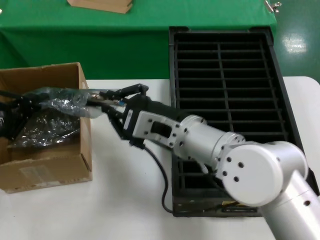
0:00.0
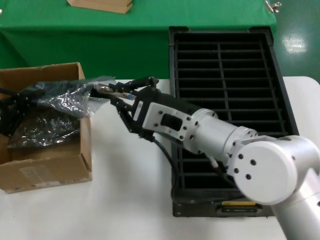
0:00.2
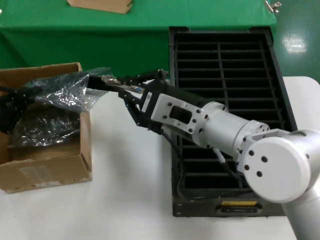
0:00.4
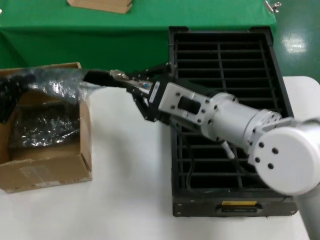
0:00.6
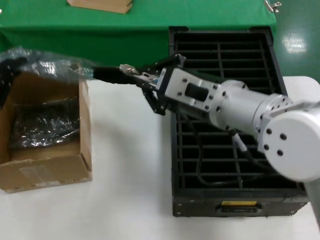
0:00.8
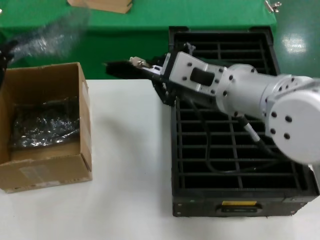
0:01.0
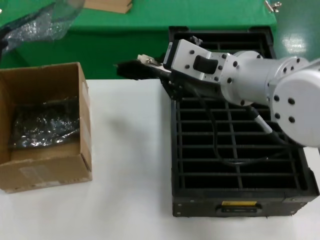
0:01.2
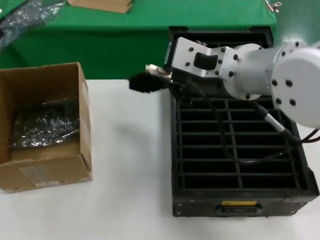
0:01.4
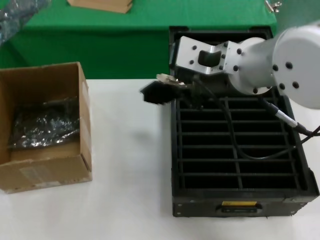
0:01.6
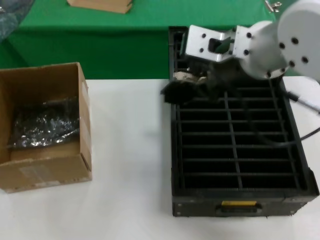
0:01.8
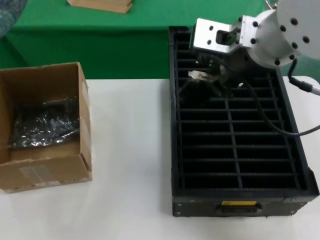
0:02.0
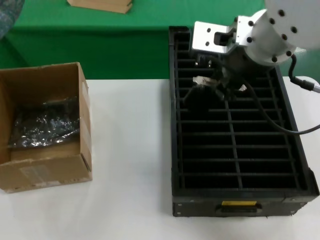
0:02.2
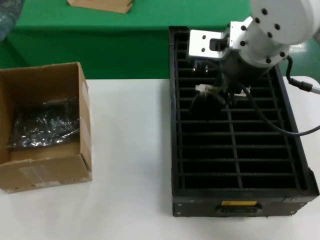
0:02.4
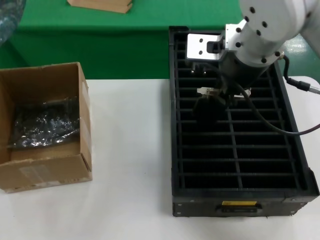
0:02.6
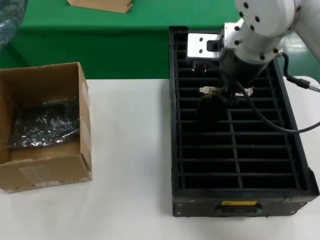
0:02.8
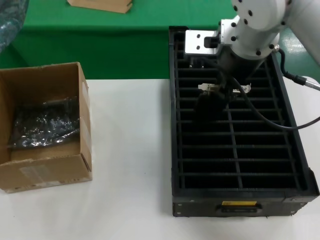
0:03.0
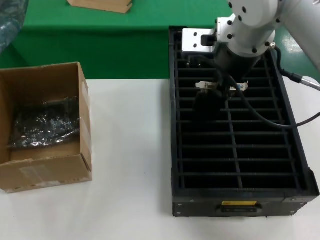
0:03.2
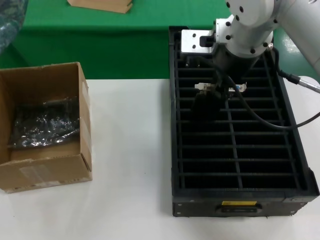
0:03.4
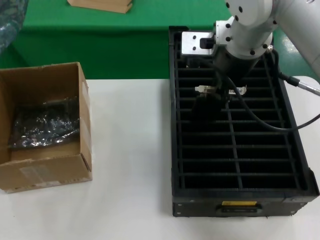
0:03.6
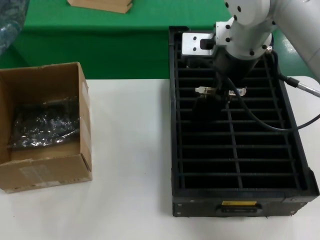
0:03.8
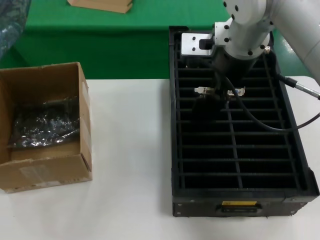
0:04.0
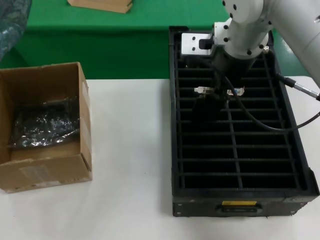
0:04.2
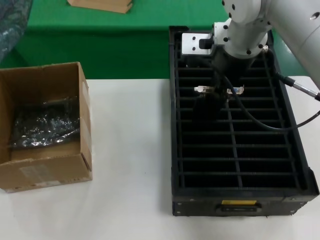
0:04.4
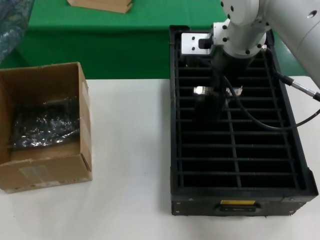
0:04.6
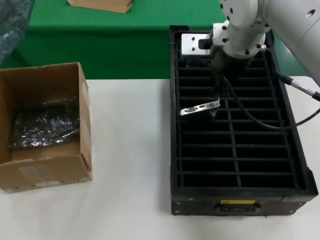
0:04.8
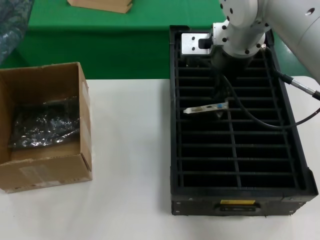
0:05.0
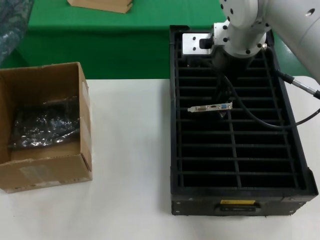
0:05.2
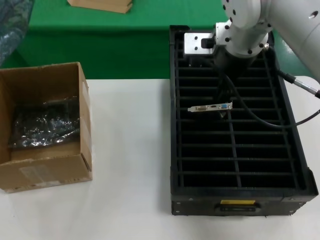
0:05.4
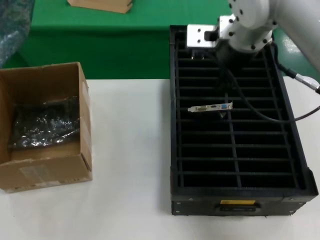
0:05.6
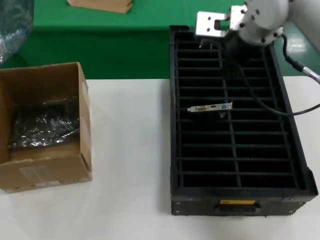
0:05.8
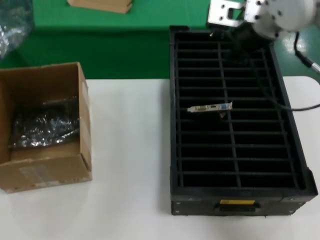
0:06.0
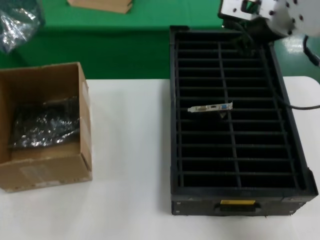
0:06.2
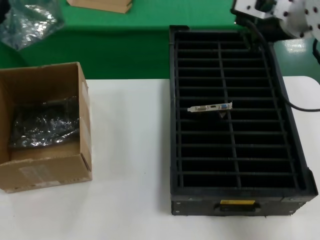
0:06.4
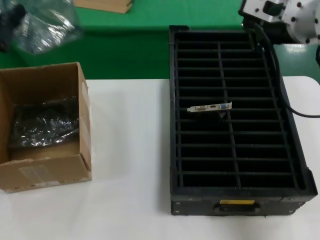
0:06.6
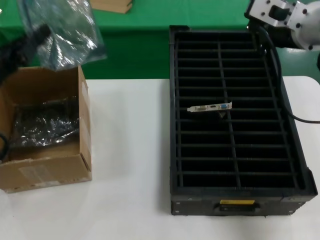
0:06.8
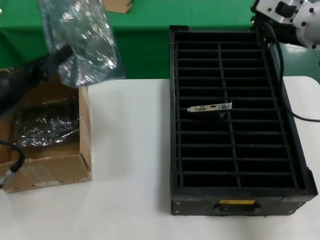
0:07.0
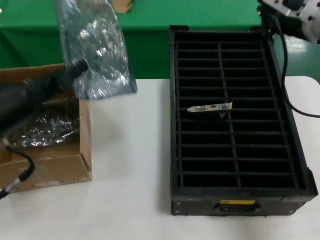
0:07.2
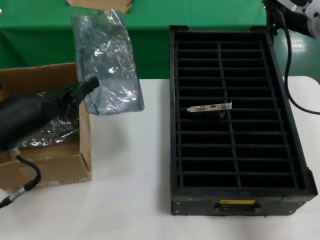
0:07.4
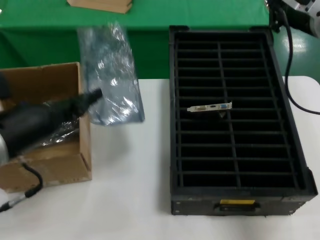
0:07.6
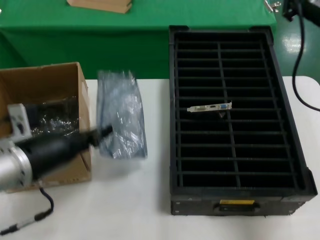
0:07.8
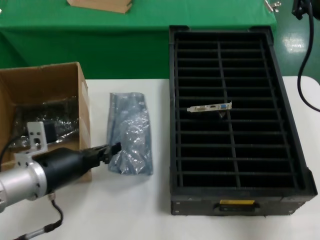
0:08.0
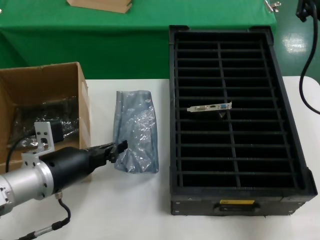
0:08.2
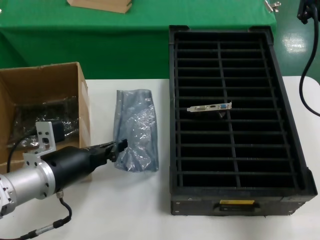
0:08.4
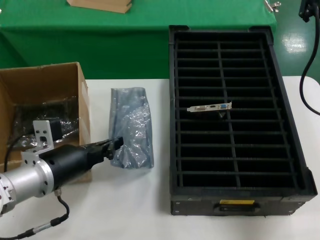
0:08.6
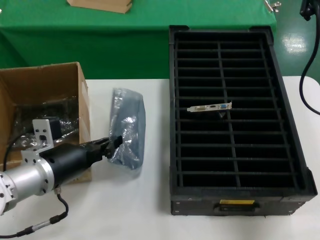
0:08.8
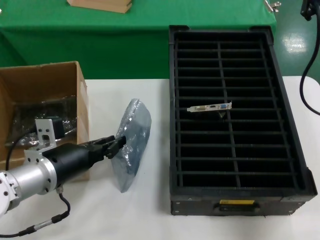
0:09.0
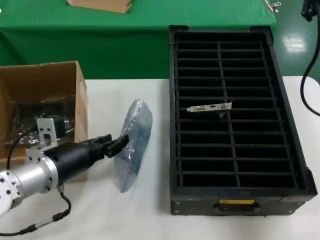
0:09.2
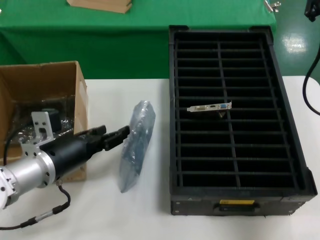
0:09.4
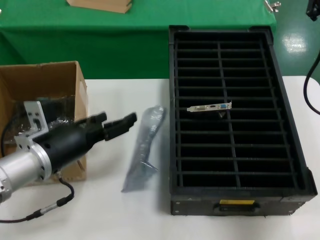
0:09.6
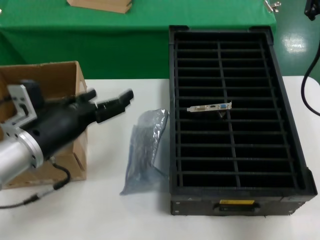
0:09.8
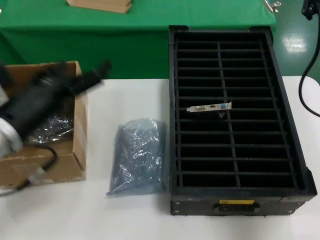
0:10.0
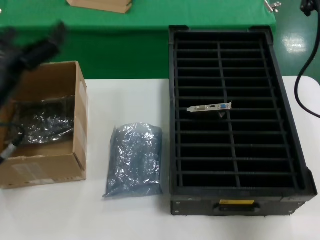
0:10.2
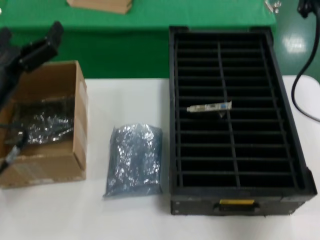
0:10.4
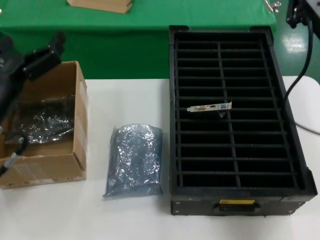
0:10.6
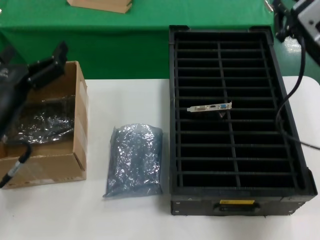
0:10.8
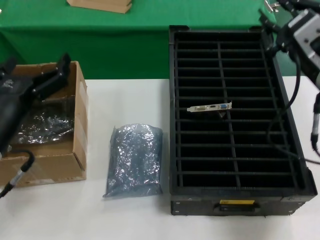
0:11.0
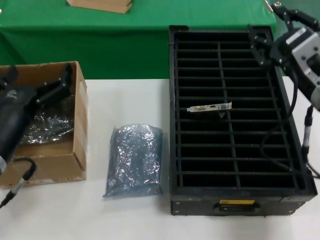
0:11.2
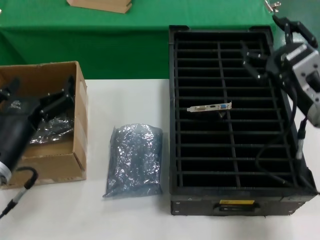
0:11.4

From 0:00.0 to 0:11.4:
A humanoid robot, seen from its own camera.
Task of the whole recording: take out graphics card from box remove packaging put into black container.
Step, from 0:01.0 to 0:05.2: Place the hard disk in the hard disk enclosure.
Step, from 0:05.4 to 0:09.6: Place the down the bag.
From 0:00.0 to 0:01.4: The right hand heads upward, covering about 15 cm.
From 0:01.4 to 0:02.8: The right hand shifts approximately 5 cm forward.
From 0:02.8 to 0:04.2: The right hand shifts by about 5 cm.
From 0:04.2 to 0:05.6: The hands move only a little.
From 0:05.6 to 0:07.2: The right hand travels to the right by approximately 10 cm, while the left hand is displaced to the right and upward by some 10 cm.
From 0:07.2 to 0:08.6: The right hand moves roughly 5 cm; the left hand heads downward and to the right, covering about 15 cm.
From 0:08.6 to 0:10.0: The left hand shifts roughly 10 cm upward.
From 0:10.0 to 0:11.4: The left hand moves downward, roughly 5 cm, while the right hand is displaced downward by about 15 cm.
